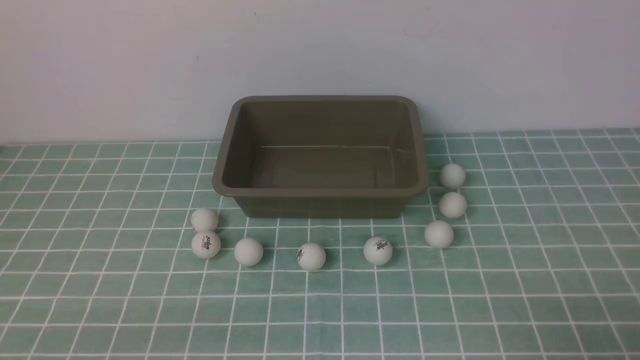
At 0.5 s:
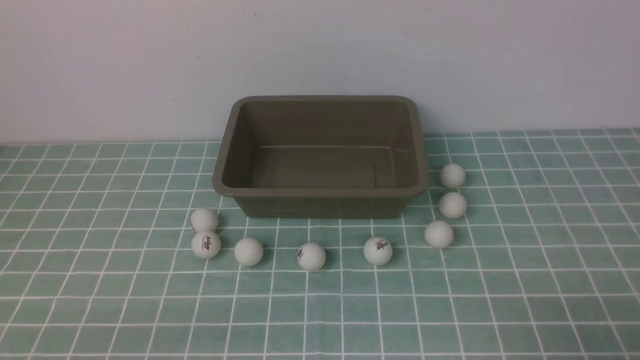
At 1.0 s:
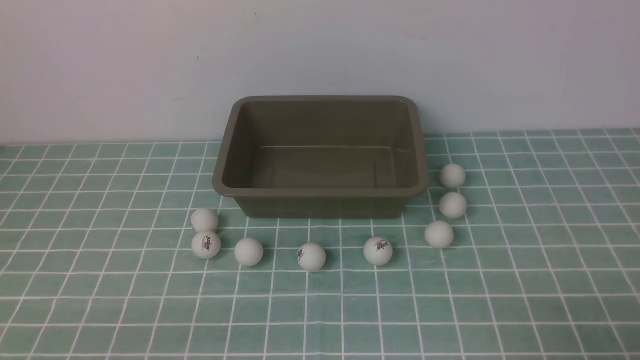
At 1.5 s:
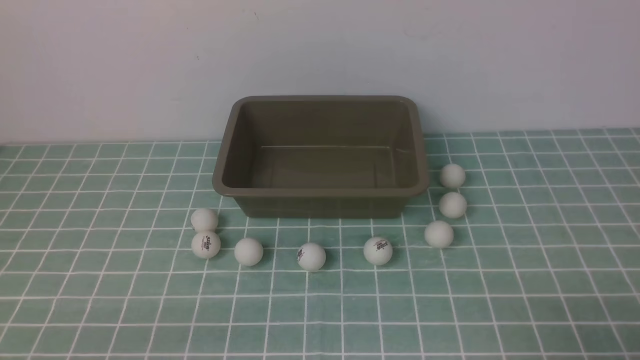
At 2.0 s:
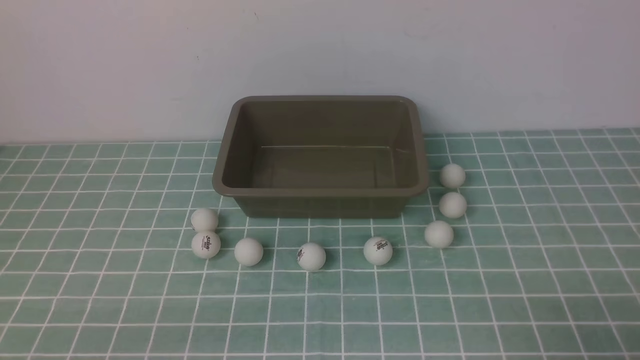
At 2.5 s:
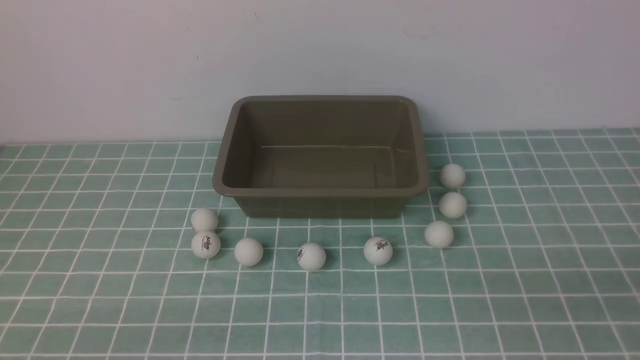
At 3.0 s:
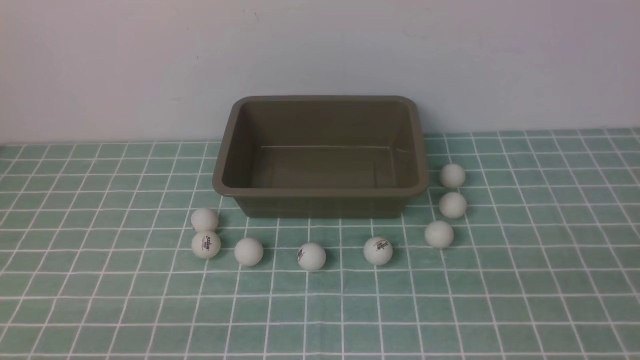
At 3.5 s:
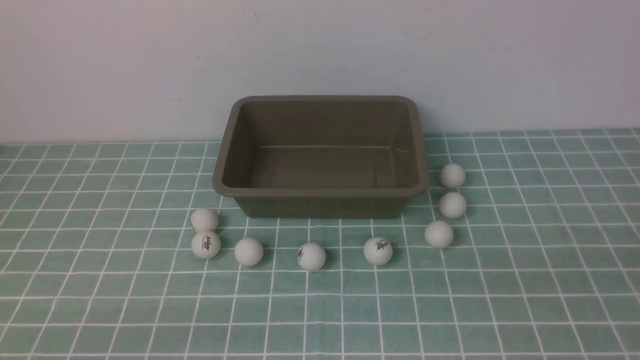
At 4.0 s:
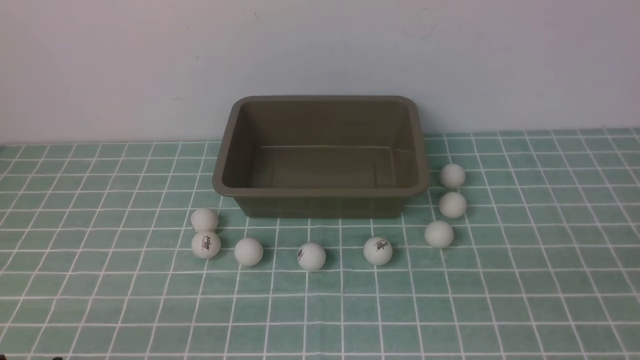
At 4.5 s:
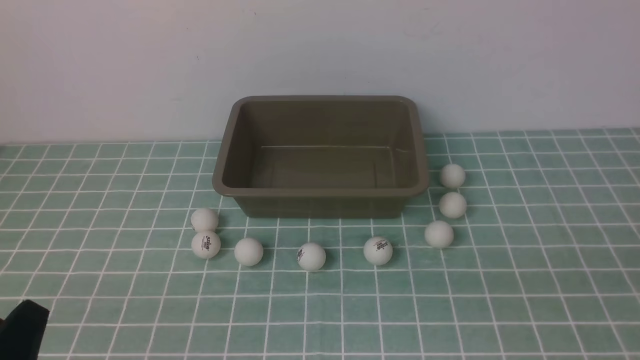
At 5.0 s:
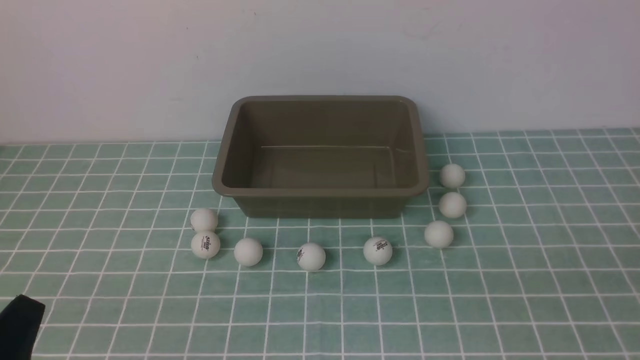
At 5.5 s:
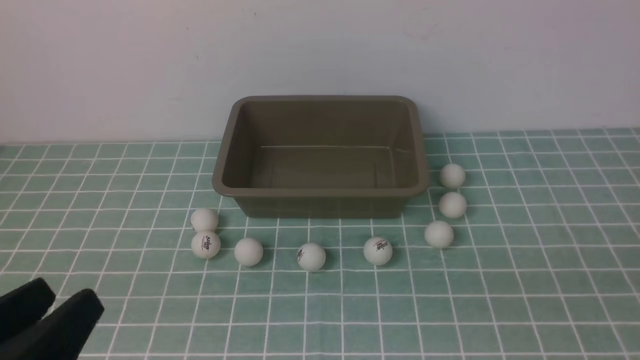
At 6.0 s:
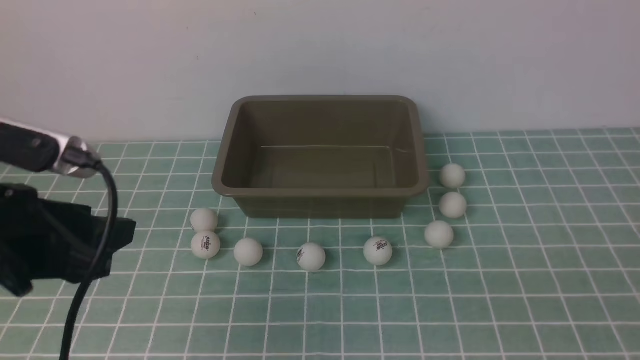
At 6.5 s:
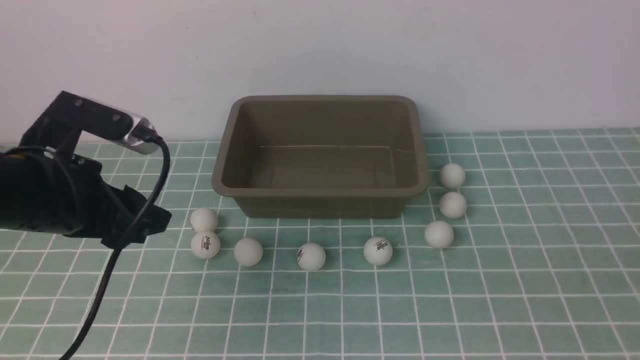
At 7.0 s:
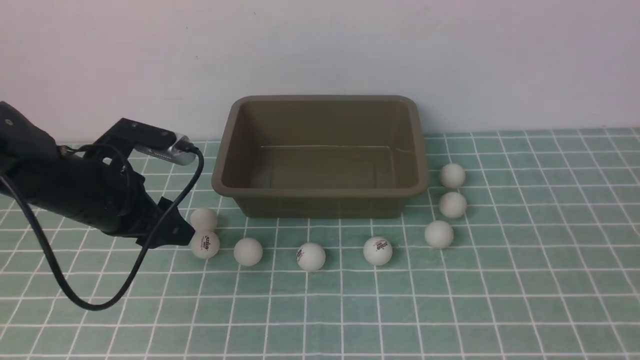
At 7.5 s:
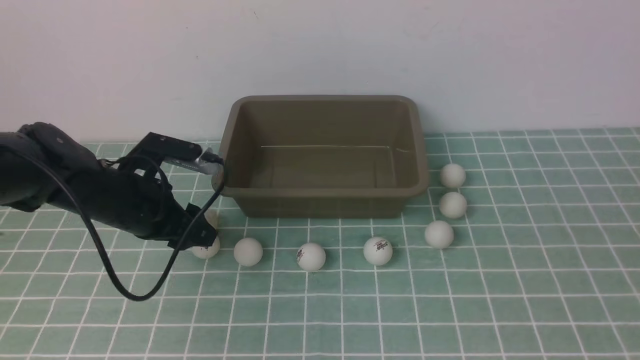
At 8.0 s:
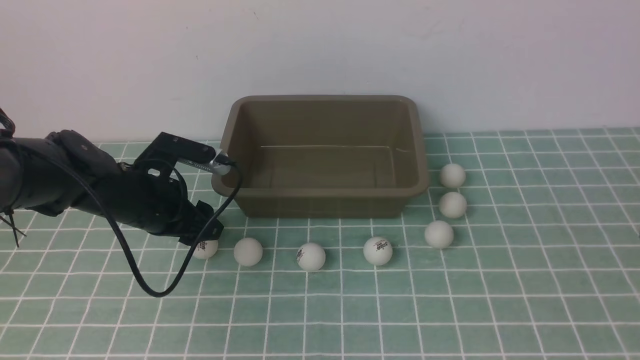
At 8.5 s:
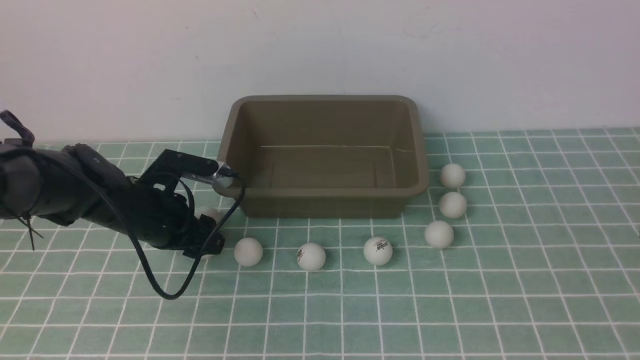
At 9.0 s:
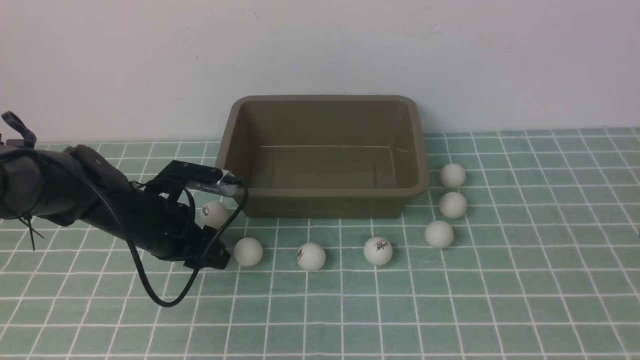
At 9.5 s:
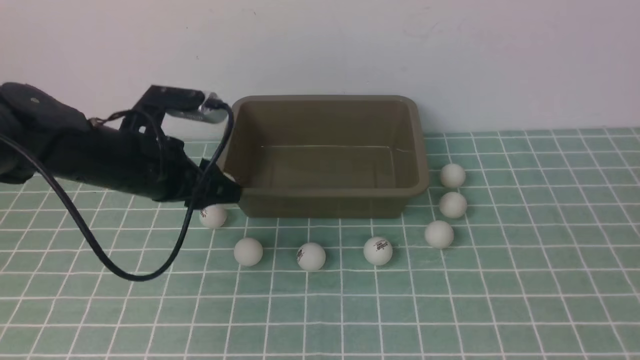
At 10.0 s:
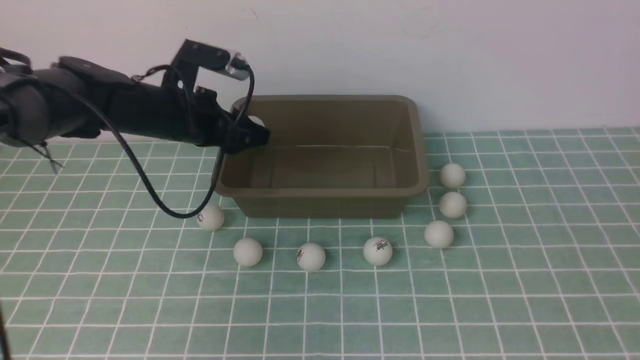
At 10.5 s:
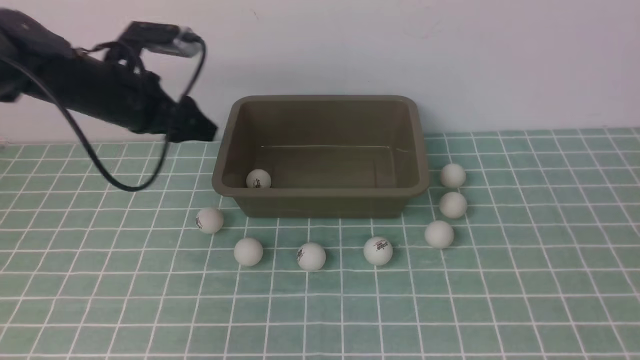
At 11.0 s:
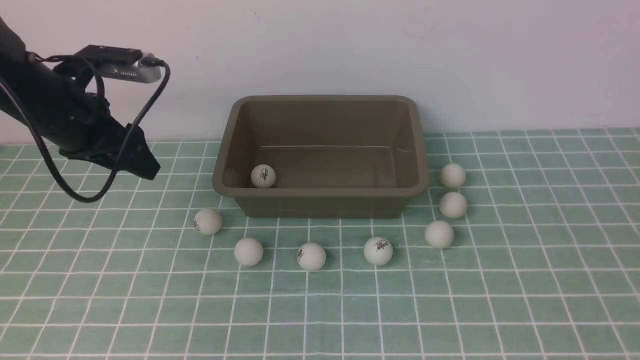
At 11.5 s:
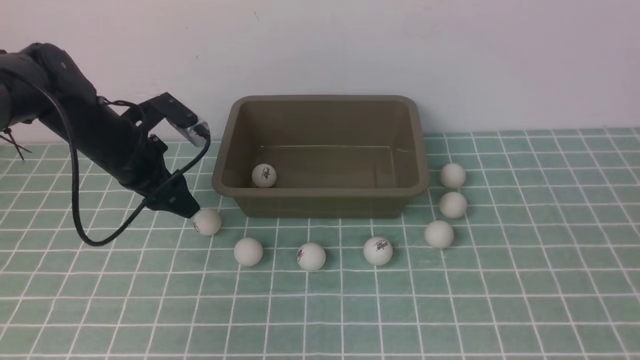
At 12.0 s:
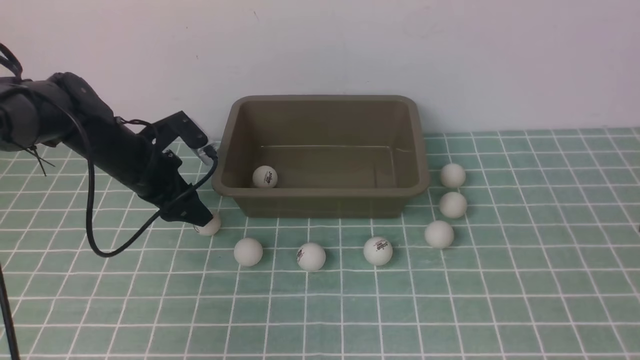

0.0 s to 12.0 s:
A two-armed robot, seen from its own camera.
Step, 0.0 to 9.0 s: use the left arm to clamp the table tennis ball closest to it.
0.0 to 2.0 s: The two grippers keep their place.
4.0 to 6.0 s: The left gripper goes about 20 cm upward and forward.
6.0 to 8.0 s: The left gripper shifts roughly 25 cm forward and downward. The right gripper moves forward, some 10 cm.
8.0 to 10.0 s: The left gripper moves forward and upward, approximately 10 cm, and closes and opens again.
10.0 to 12.0 s: The left gripper moves downward, some 5 cm.

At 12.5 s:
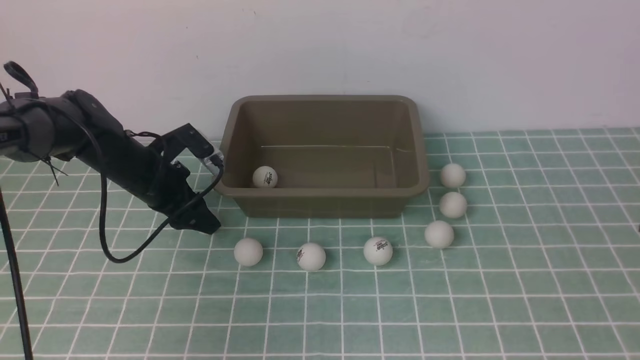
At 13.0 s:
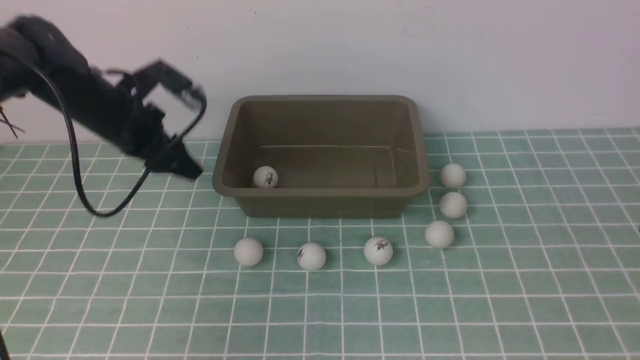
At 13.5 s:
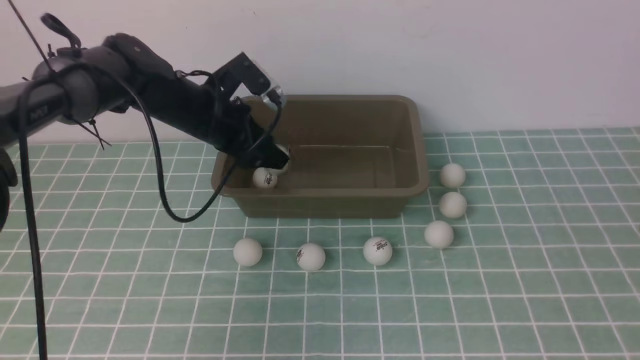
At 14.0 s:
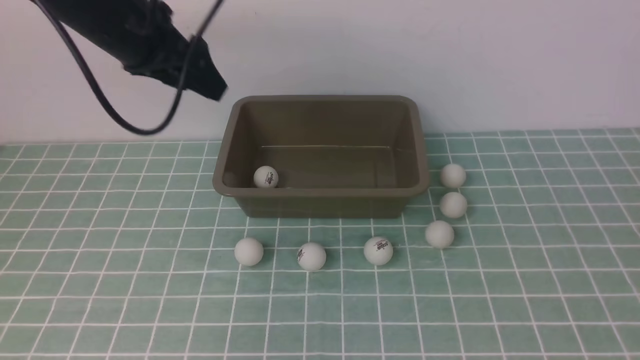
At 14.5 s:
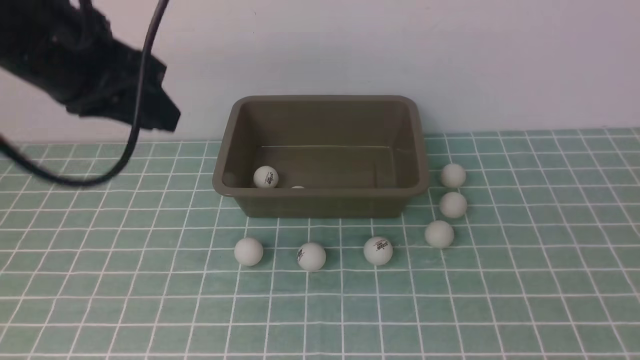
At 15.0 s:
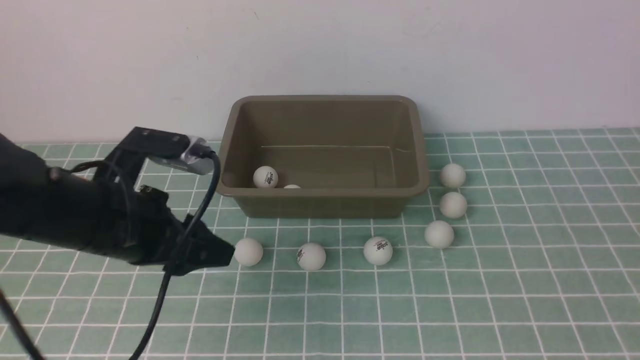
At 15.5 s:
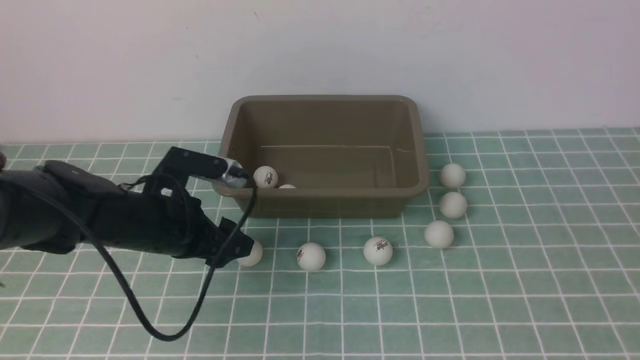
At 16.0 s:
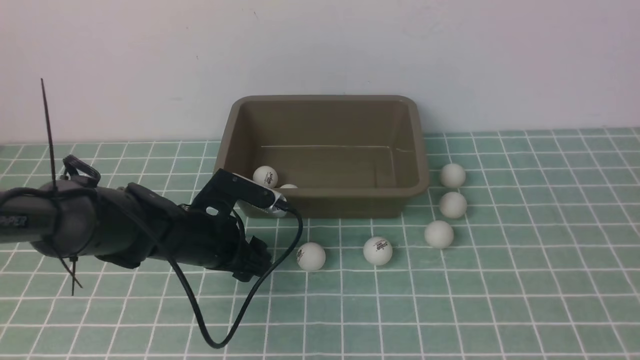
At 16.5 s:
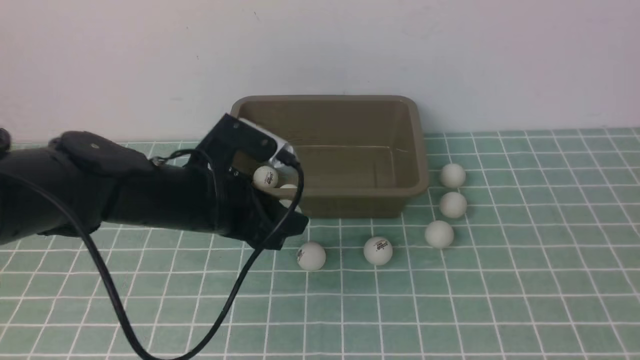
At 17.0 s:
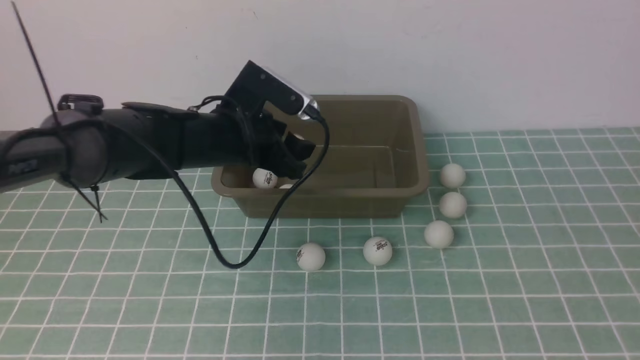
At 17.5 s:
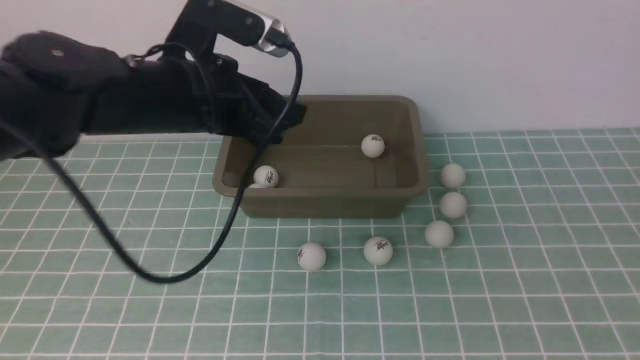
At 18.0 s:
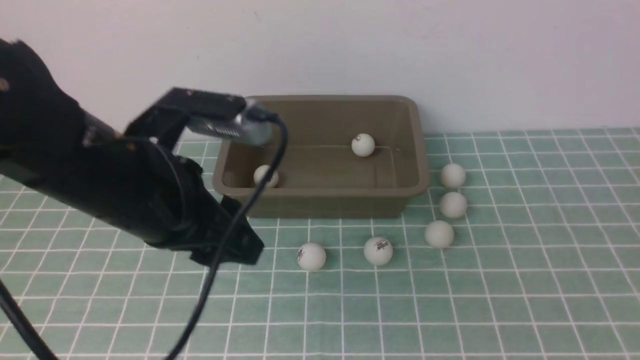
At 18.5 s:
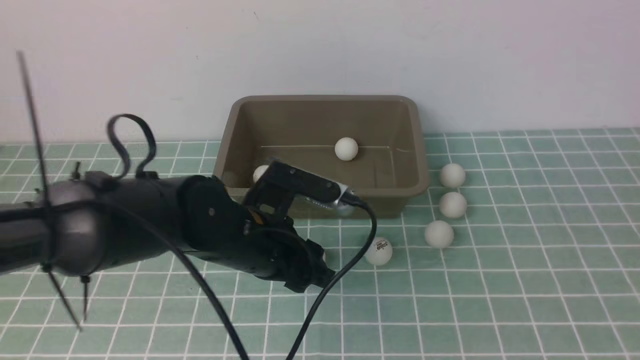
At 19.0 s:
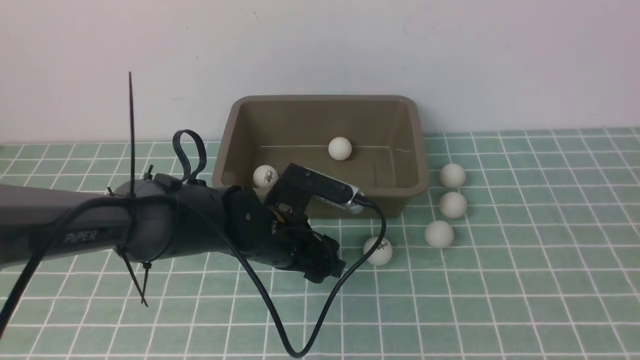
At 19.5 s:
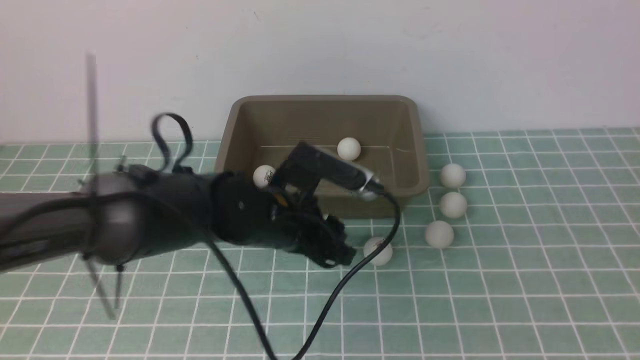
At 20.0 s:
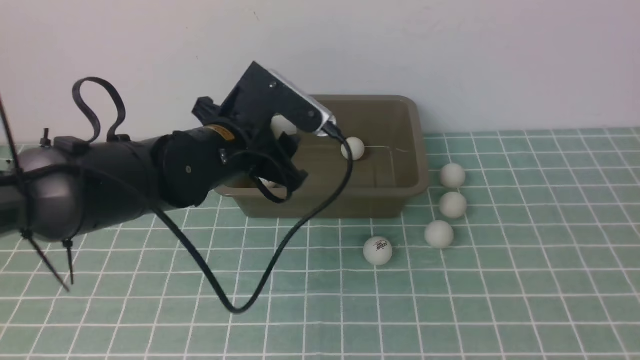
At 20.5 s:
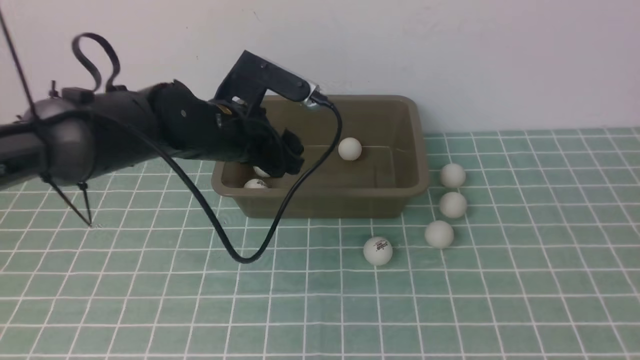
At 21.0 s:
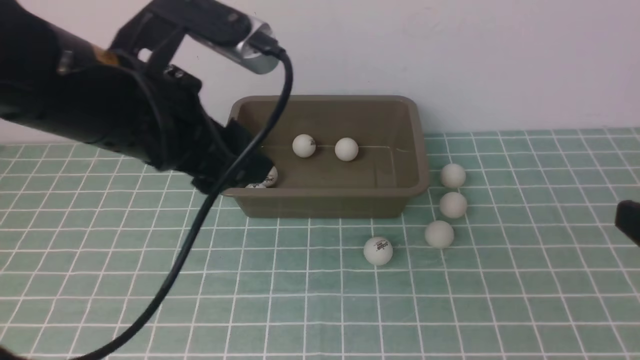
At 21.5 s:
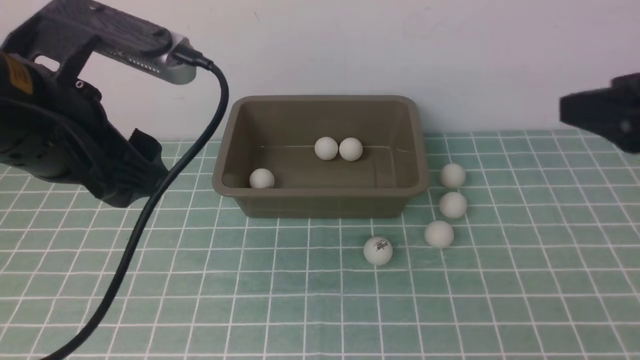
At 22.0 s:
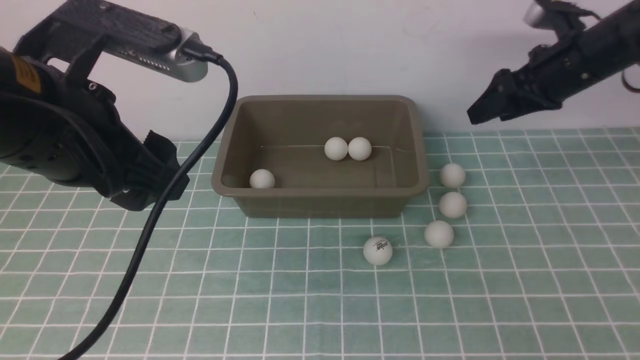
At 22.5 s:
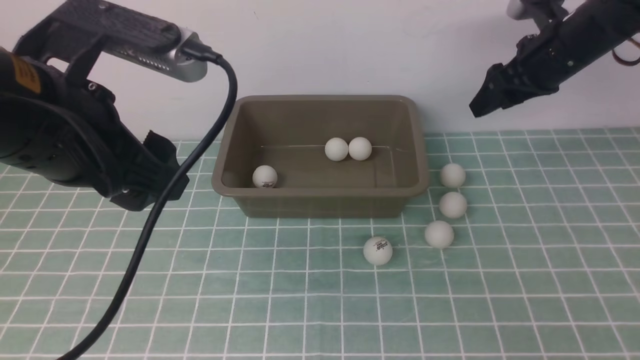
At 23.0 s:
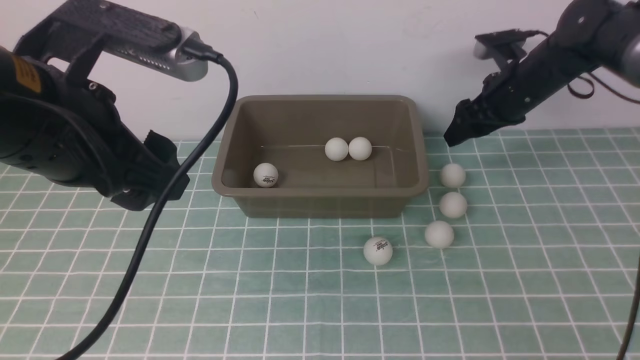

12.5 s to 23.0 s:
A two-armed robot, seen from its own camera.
Step, 13.0 to 13.5 s: use the left arm to put the table tennis ball into the box.
Step, 14.0 to 16.0 s: use the left arm to clamp the table tennis ball closest to it.
Step, 17.5 to 19.5 s: use the left arm to clamp the table tennis ball closest to it.
12.5 to 14.5 s: The left gripper shifts about 25 cm upward and backward, and closes its fingers.
14.5 to 16.5 s: The left gripper moves downward, to the right and forward, approximately 15 cm, and opens, then closes once more.
16.5 to 19.0 s: The left gripper moves up and down over some 15 cm, changing direction 2 times, and opens, then closes again.
19.0 to 21.0 s: The left gripper moves upward, to the left and backward, some 20 cm, and opens its fingers. The right gripper heads forward, covering some 10 cm.
21.0 to 23.0 s: The right gripper moves forward and downward, approximately 35 cm, and closes.
